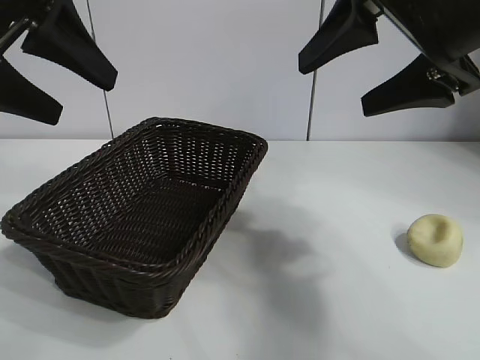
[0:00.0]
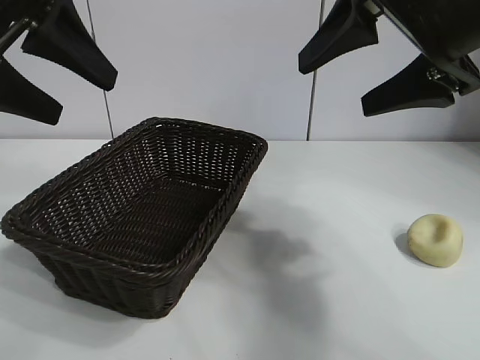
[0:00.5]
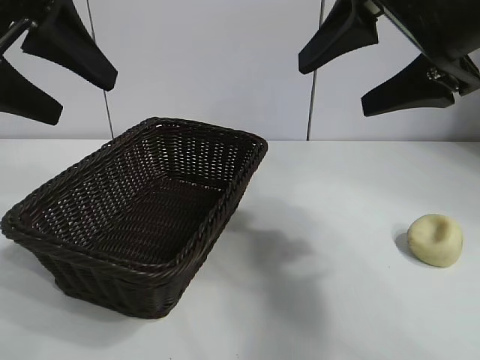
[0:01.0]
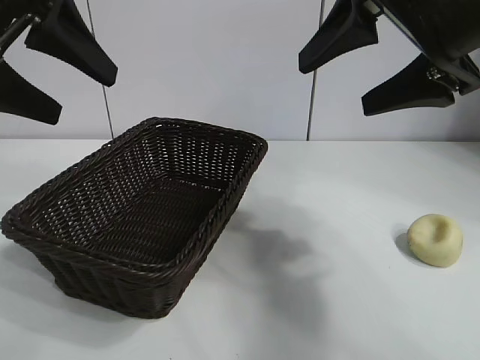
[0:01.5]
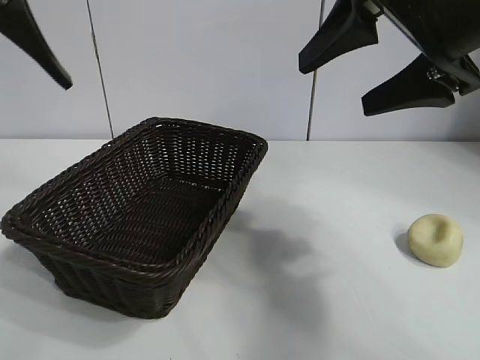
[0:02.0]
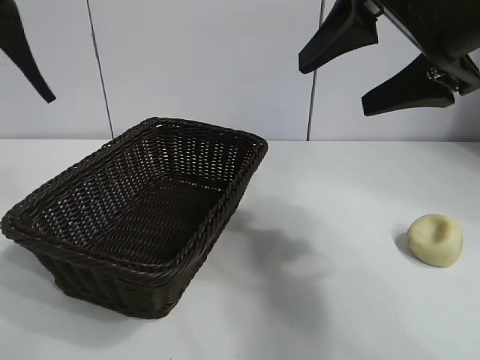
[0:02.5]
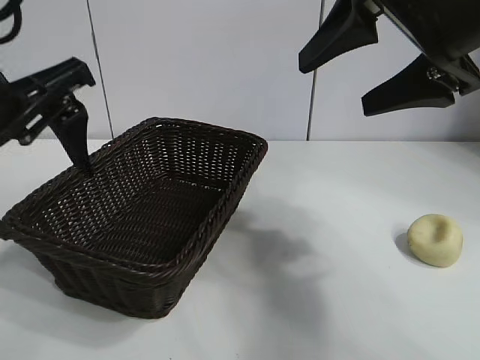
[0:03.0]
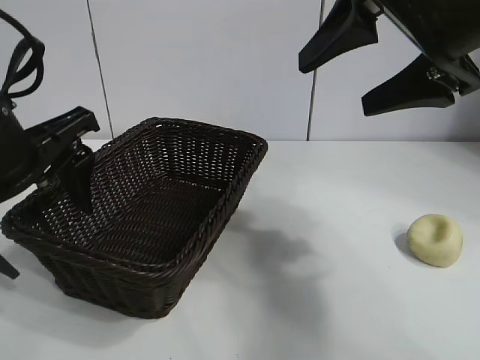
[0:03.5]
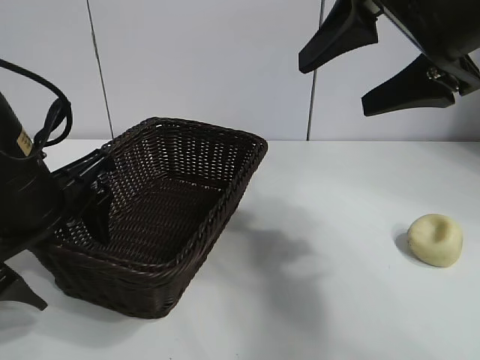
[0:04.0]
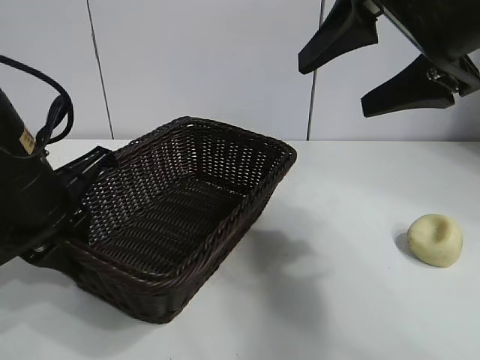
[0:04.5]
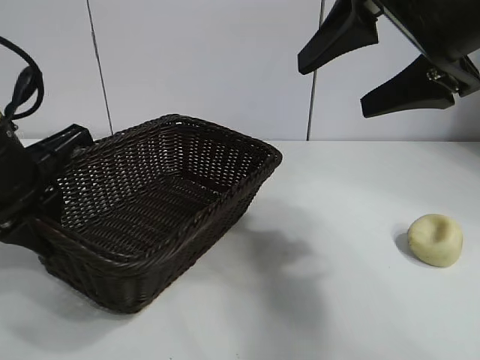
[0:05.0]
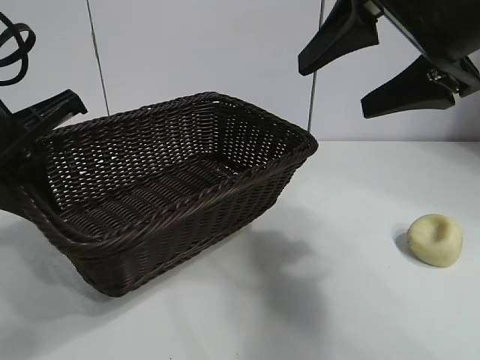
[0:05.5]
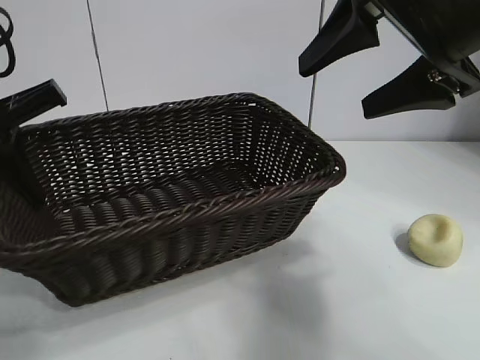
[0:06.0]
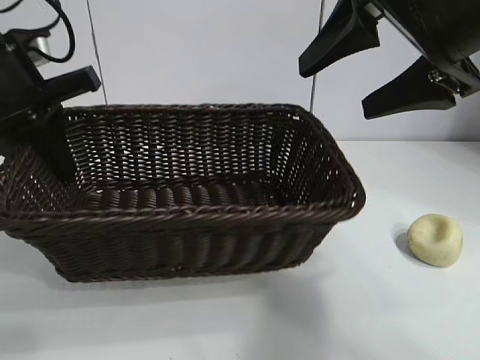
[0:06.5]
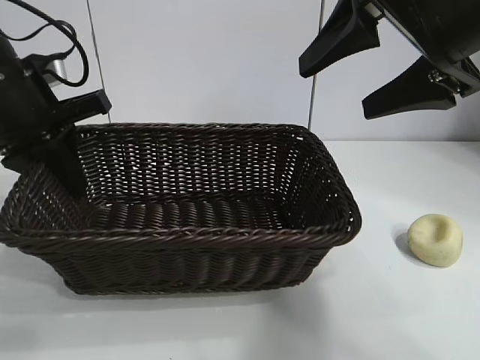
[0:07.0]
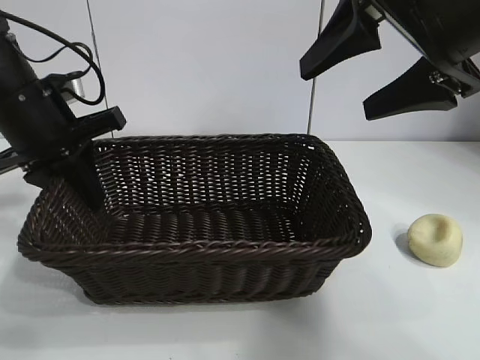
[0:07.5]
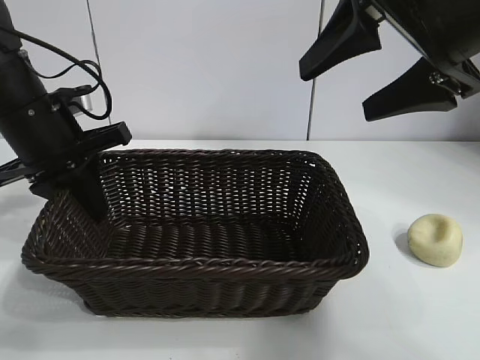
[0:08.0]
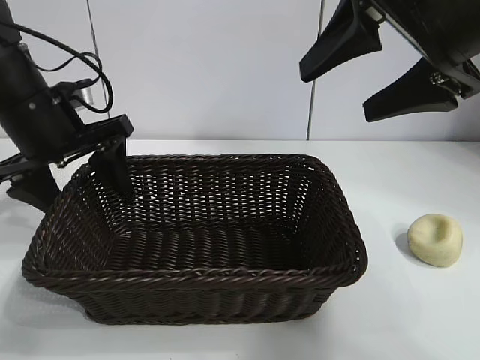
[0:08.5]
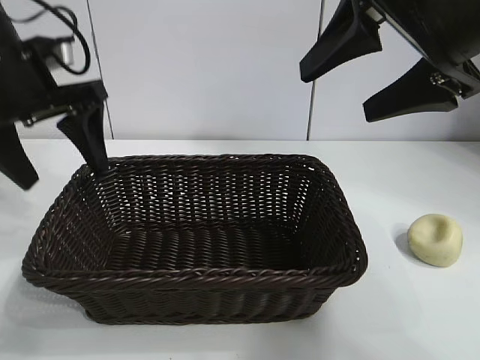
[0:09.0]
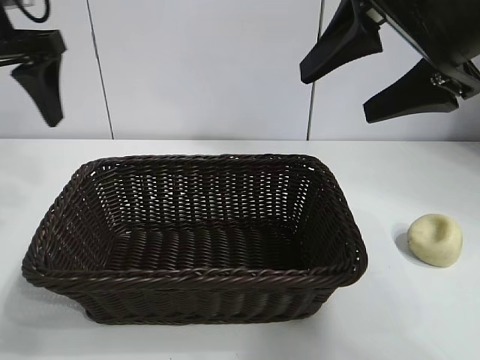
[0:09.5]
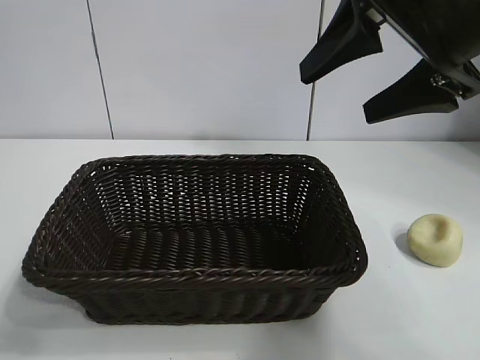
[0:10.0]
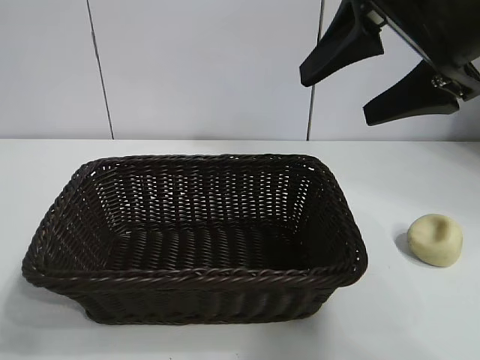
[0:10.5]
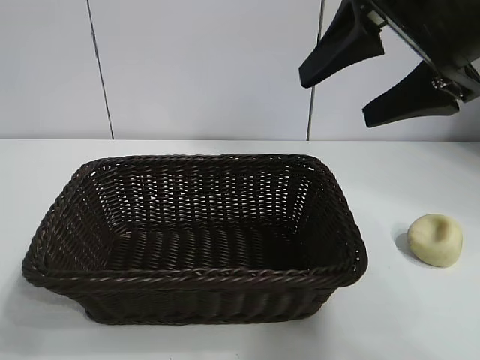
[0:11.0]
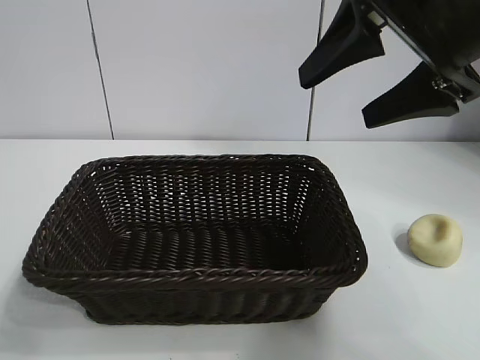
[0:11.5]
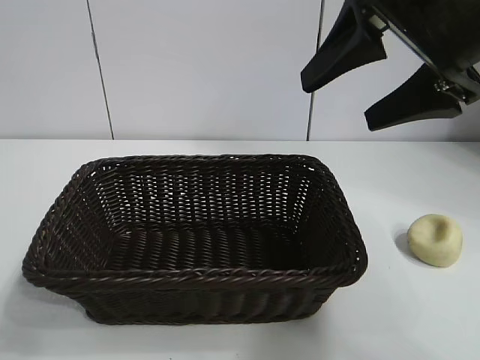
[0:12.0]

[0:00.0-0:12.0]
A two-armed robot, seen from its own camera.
Task of the whole recording: pick up the egg yolk pastry and put it into the basket.
Step, 0:01.5 to 0:04.0: Grasp the basket with left gripper.
Step, 0:04.5 to 0:08.5: Place the basket in the center of view with left gripper.

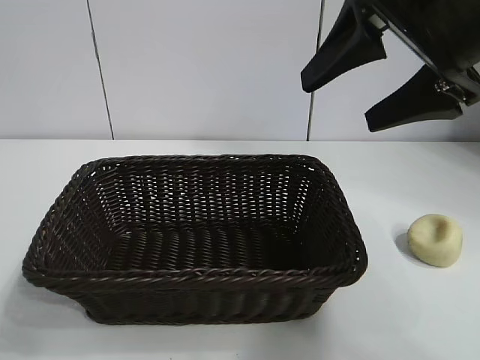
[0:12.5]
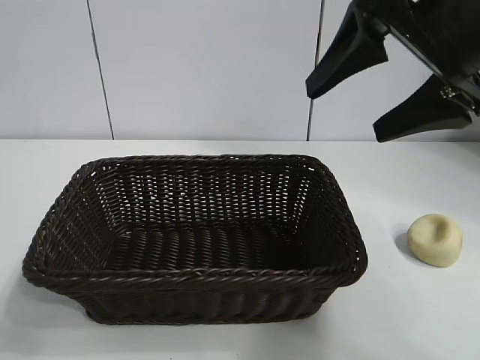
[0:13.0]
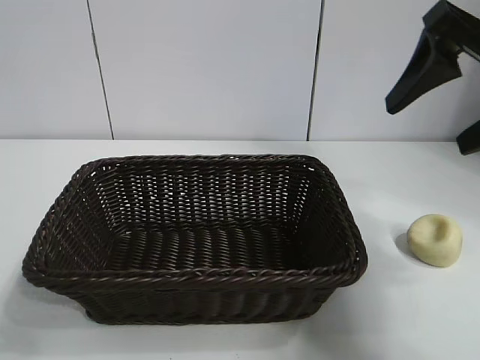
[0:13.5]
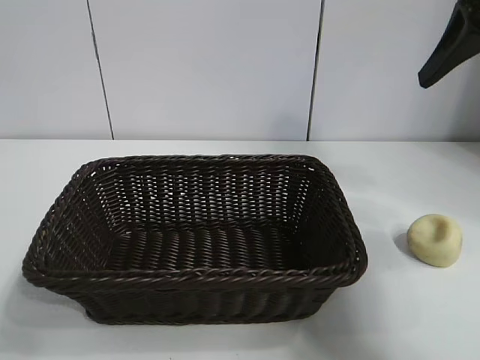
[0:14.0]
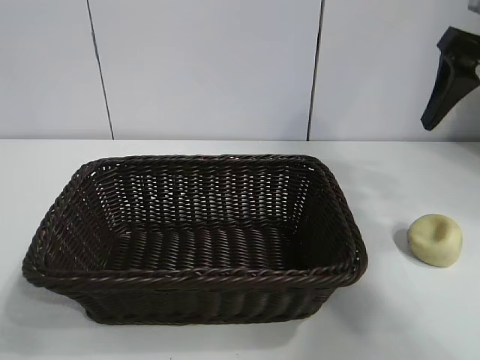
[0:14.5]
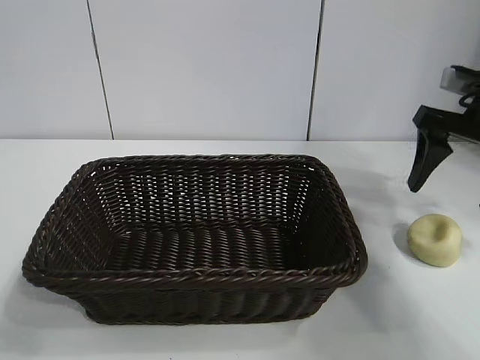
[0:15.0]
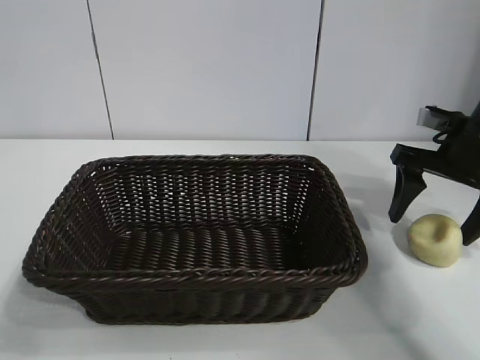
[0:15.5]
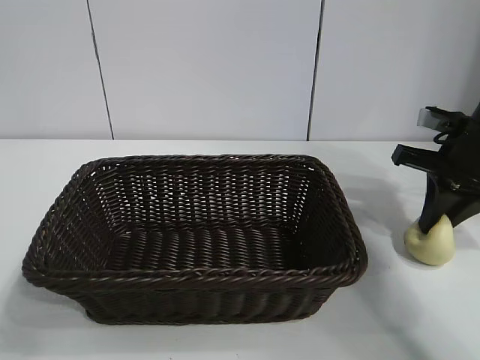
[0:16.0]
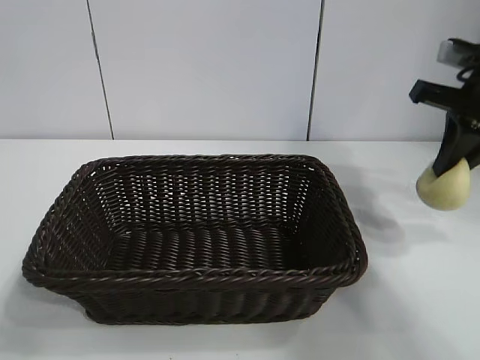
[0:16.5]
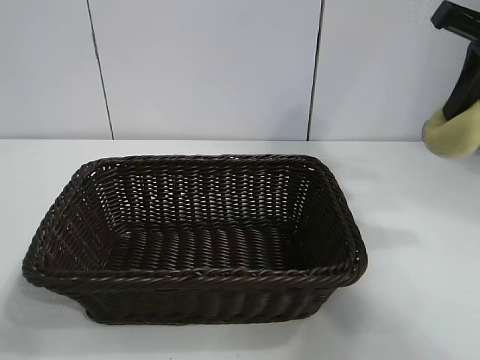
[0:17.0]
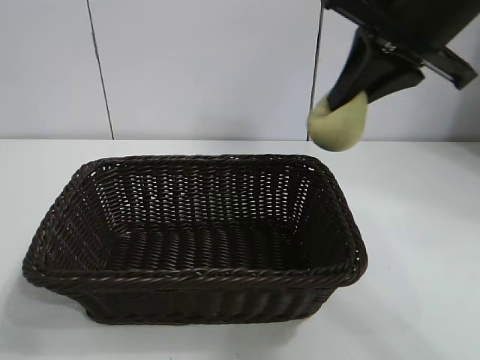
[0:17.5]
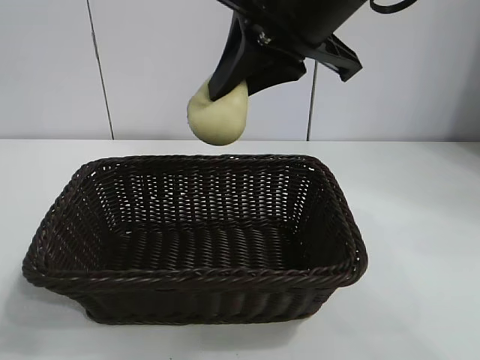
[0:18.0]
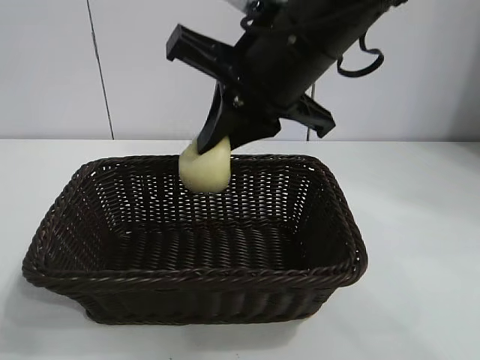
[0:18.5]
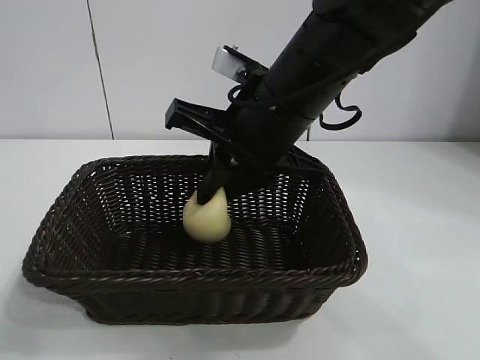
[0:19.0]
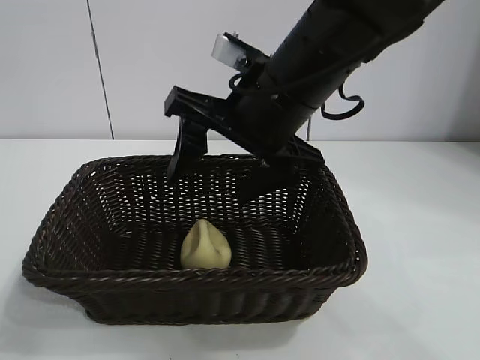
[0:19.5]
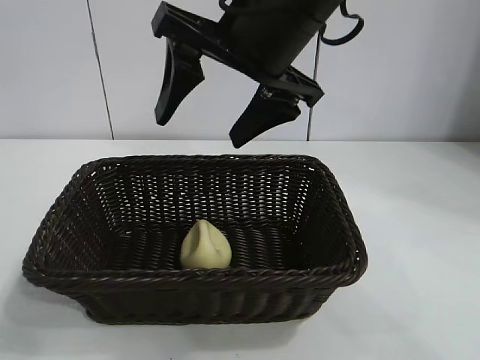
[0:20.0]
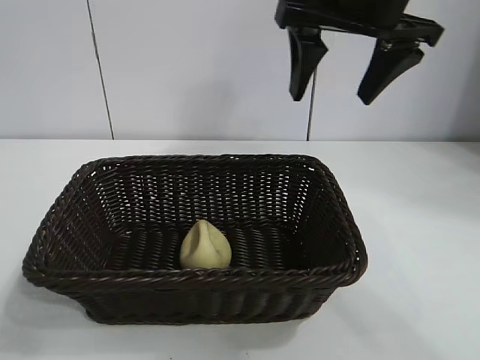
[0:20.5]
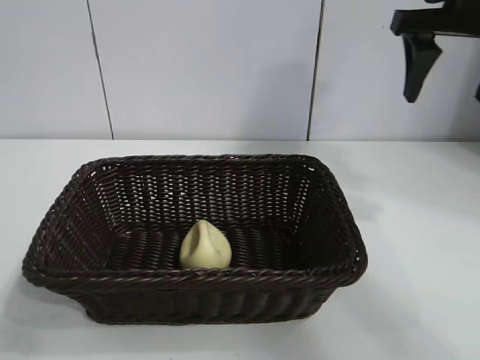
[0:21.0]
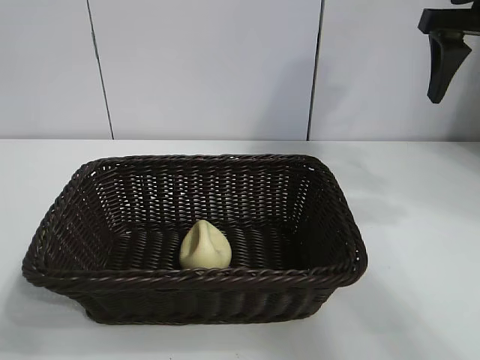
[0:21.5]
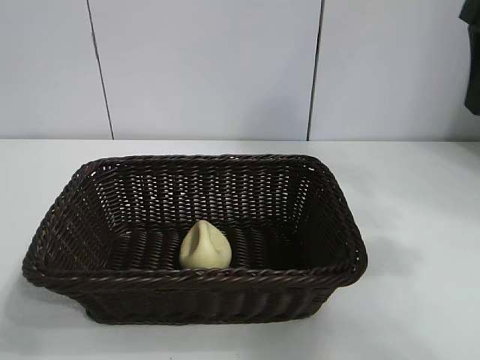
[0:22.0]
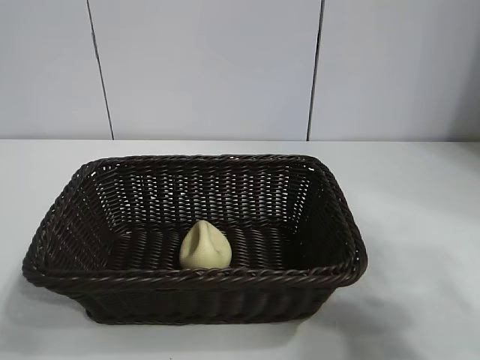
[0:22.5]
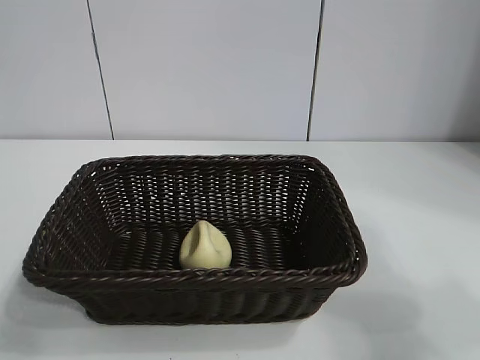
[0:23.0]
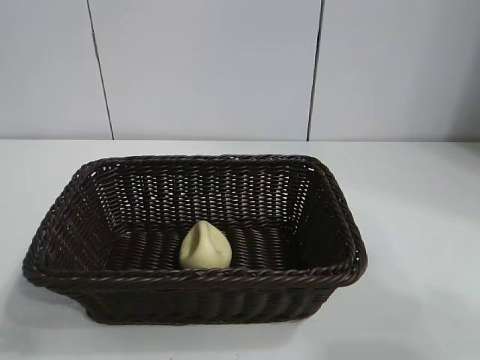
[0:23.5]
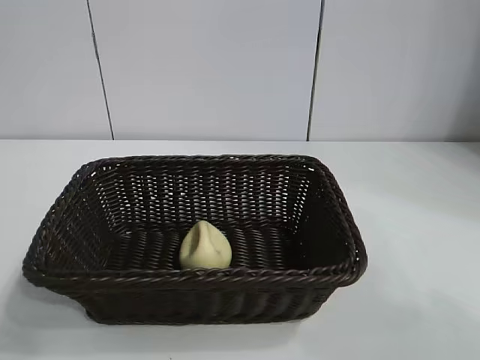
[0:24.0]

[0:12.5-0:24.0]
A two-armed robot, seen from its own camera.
Task of the whole recording: pick up the egg yolk pastry and put it into the basket.
Step, 0:12.5 to 0:16.0: Grasp egg yolk pastry with right gripper.
Step, 0:16.5 to 0:19.0: Place the egg yolk pastry in the basket with right gripper.

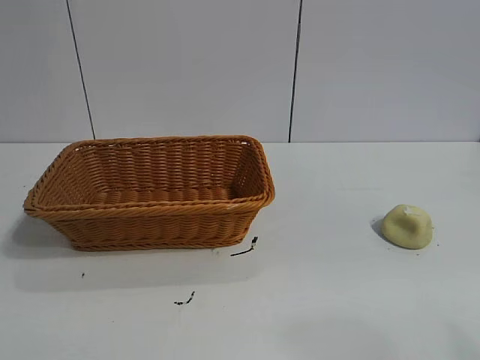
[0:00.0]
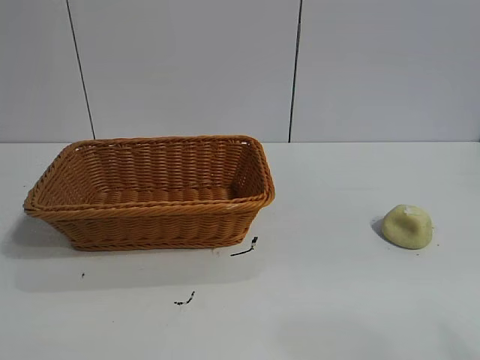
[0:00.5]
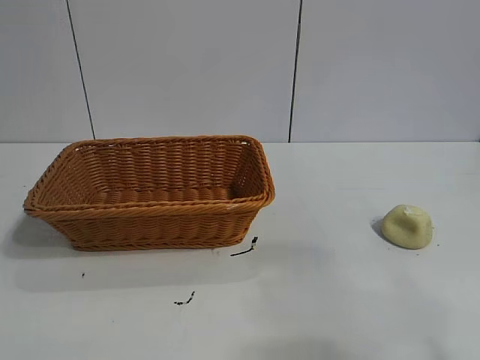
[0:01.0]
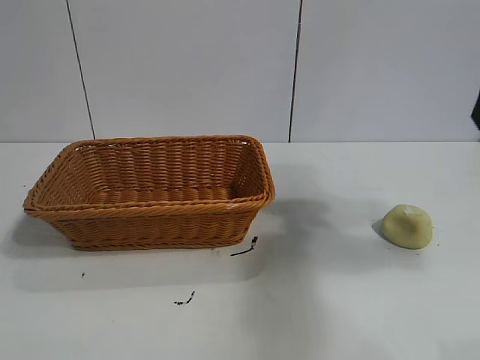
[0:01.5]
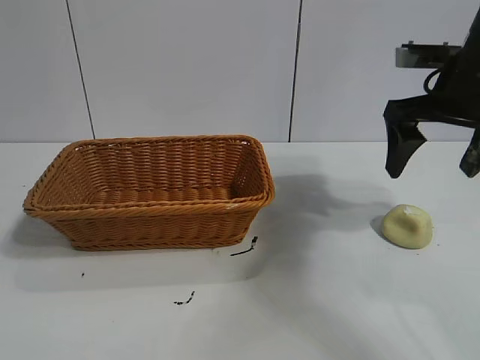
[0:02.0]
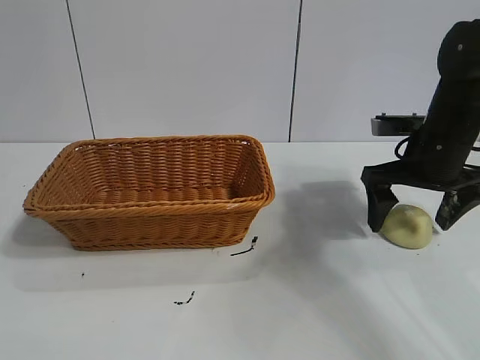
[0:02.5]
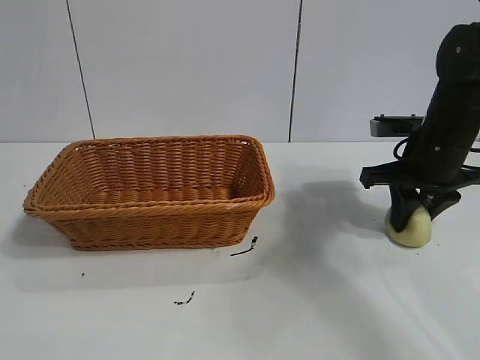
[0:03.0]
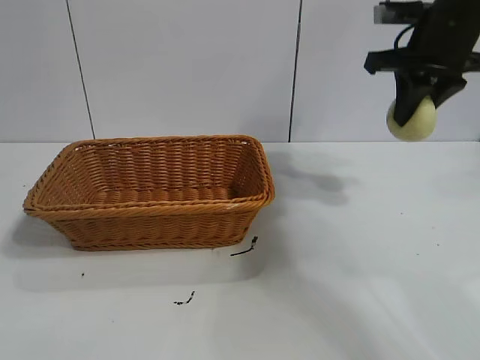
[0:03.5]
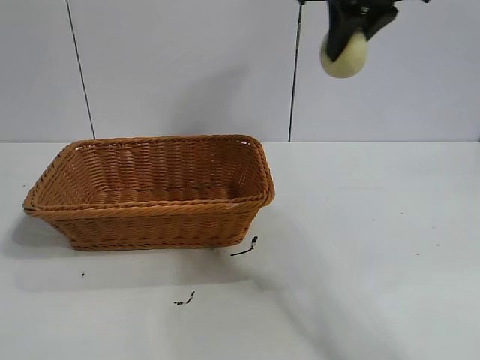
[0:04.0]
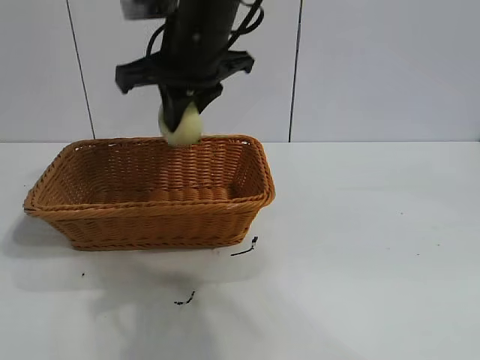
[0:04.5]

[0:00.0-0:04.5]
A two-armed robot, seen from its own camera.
Task of the whole recording: pick up the egg yolk pastry and put it into the basket.
Step, 0:00.0 to 0:03.0: Grasp egg yolk pastry with right gripper.
